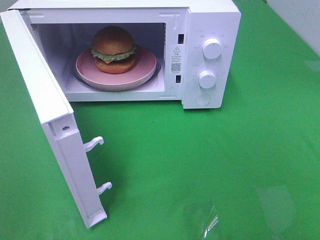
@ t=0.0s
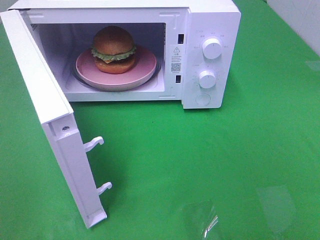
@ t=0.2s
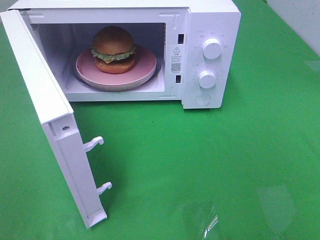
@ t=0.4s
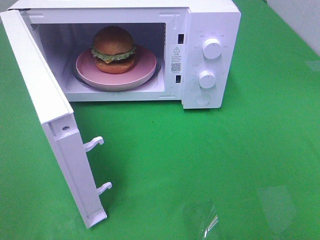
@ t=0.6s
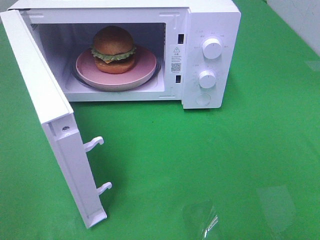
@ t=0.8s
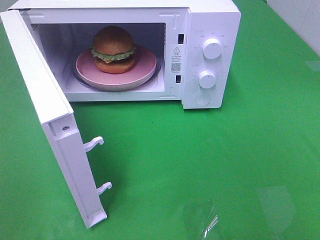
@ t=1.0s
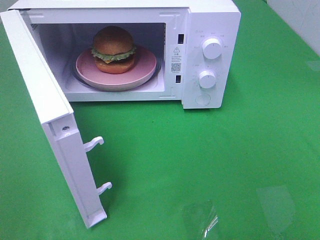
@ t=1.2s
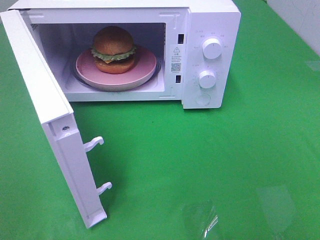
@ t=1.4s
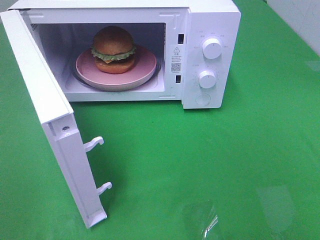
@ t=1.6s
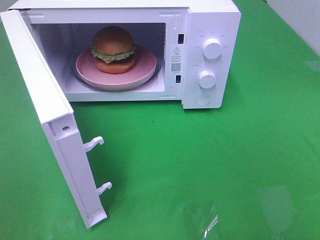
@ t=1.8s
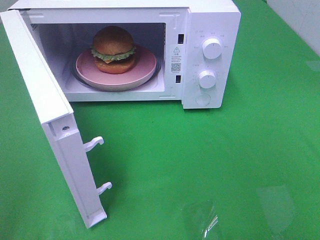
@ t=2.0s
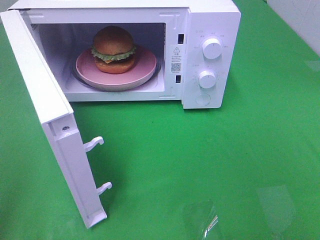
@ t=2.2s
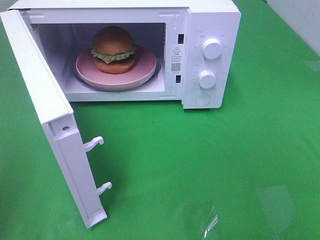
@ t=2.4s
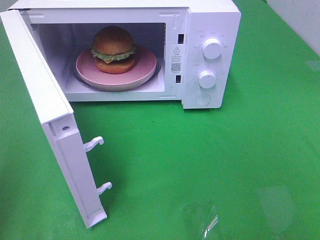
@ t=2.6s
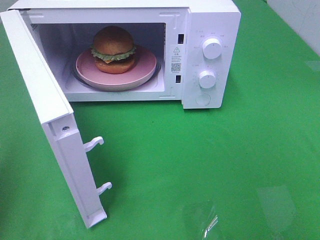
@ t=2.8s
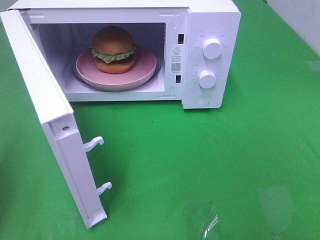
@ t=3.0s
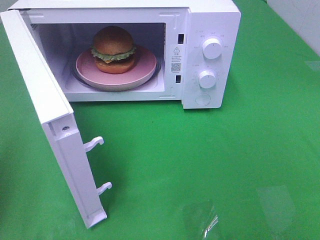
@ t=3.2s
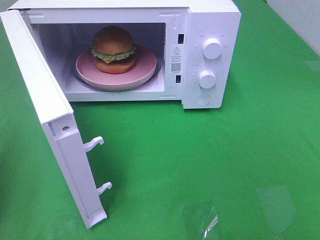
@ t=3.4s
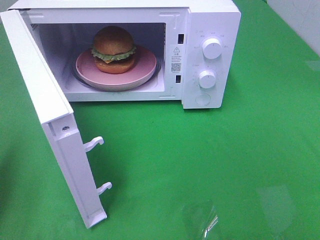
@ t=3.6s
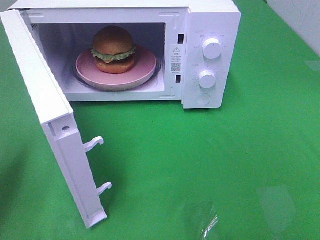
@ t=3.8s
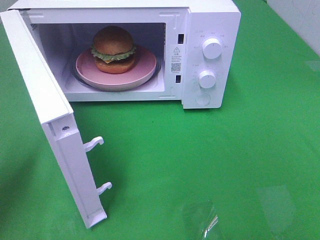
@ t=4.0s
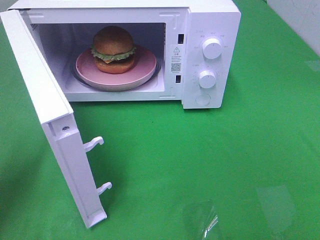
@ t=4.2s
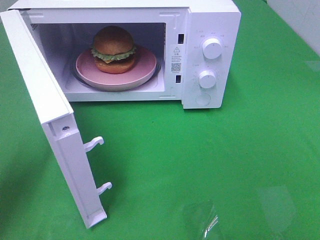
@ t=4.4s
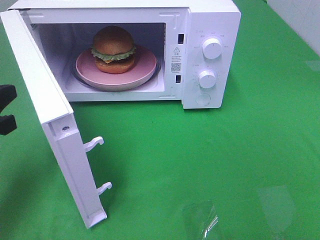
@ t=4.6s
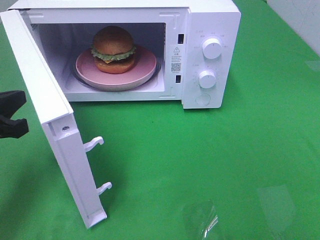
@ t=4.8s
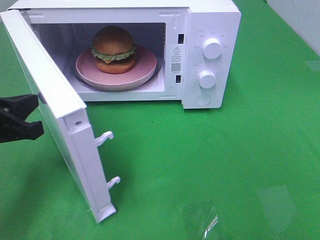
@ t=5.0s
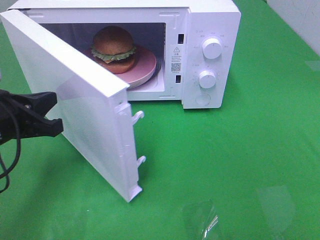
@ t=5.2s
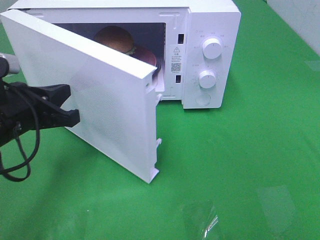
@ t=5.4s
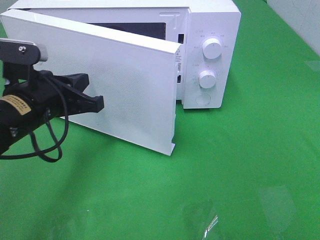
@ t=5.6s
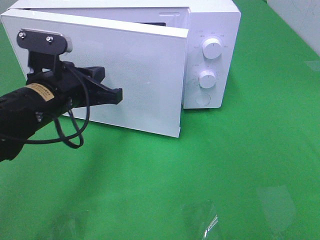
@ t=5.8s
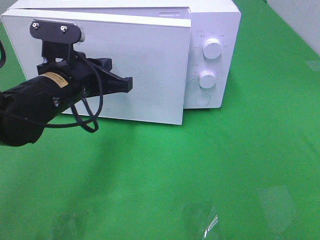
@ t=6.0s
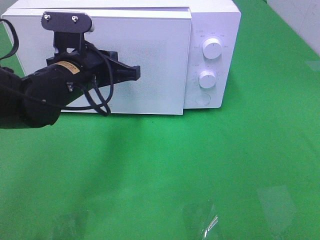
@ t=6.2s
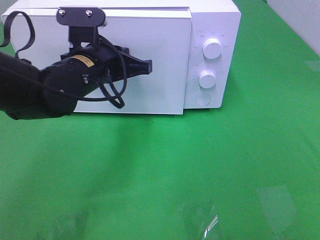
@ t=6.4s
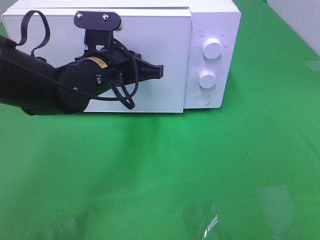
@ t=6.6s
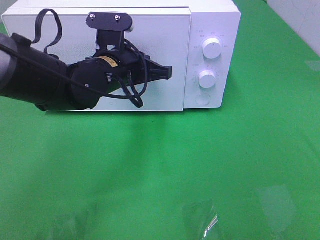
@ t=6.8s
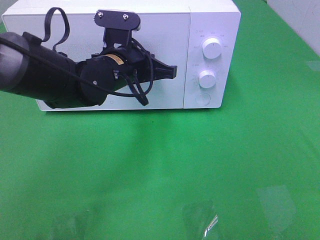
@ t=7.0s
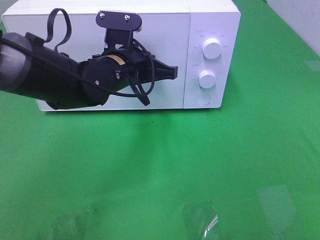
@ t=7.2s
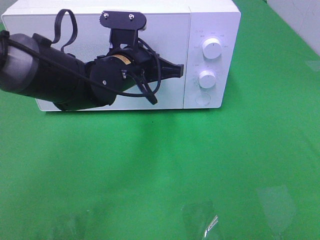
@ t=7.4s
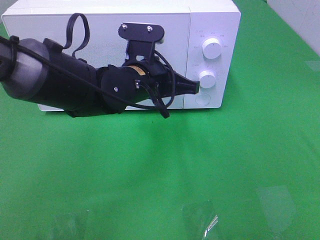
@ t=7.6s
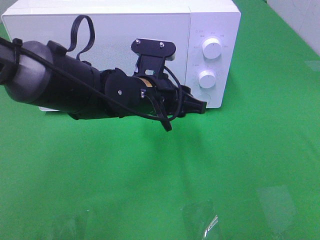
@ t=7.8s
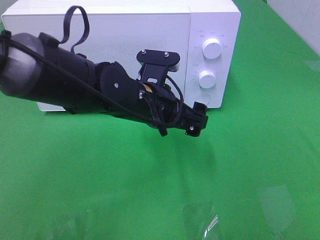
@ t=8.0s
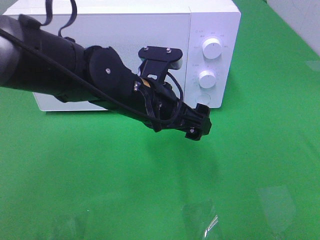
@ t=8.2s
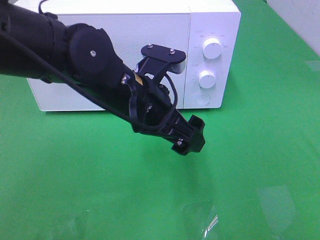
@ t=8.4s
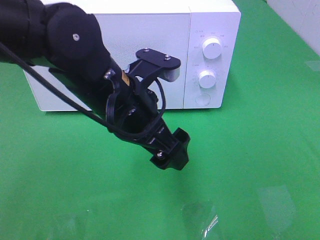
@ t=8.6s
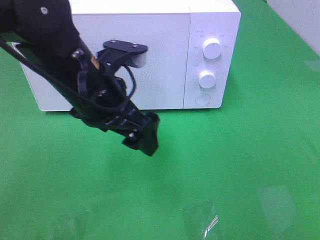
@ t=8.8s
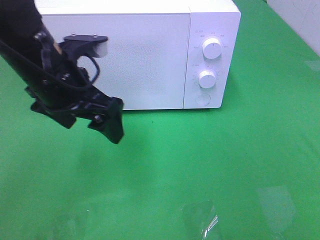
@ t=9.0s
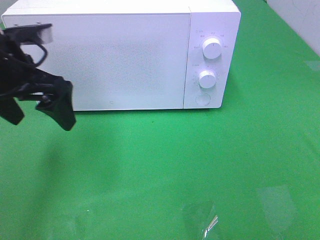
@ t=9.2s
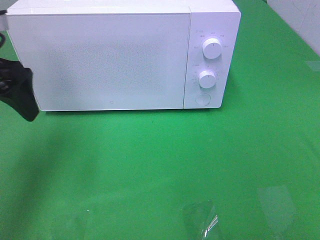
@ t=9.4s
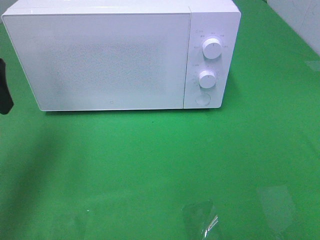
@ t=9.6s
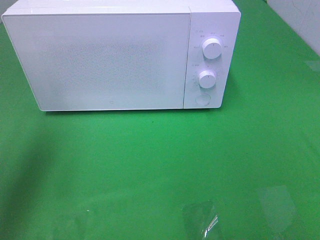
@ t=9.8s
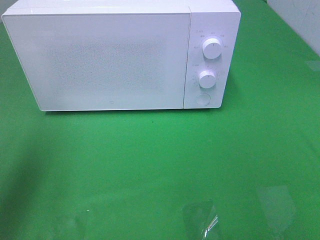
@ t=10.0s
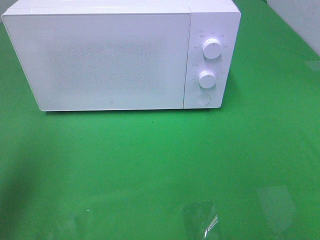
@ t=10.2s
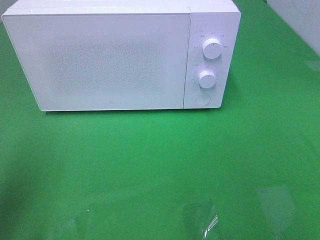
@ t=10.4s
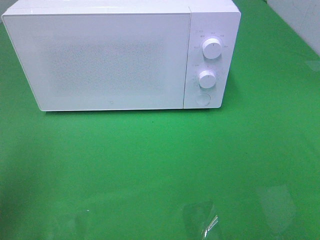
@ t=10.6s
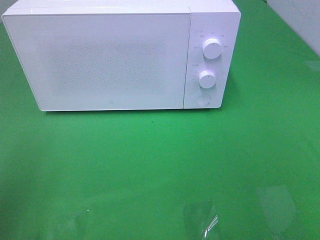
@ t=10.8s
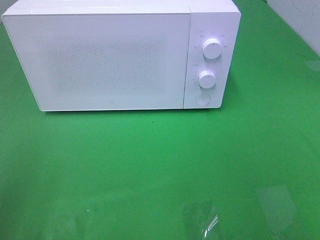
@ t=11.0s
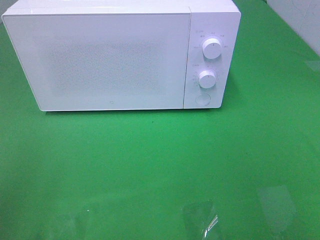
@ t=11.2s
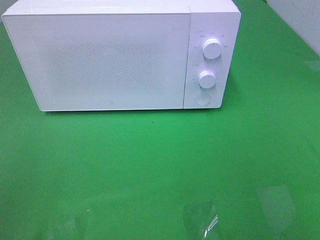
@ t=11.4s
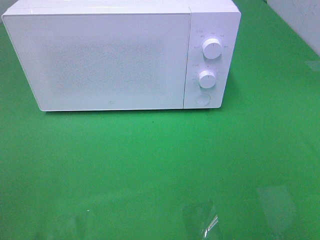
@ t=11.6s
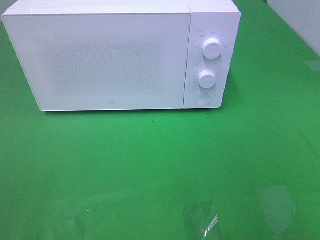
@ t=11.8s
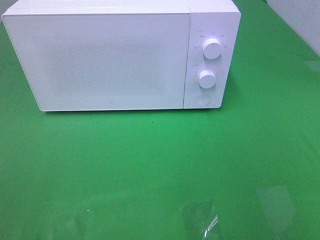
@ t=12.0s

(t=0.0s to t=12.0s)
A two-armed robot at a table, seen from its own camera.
Task of the whole recording: Heat the burger.
Step, t=0.0s - t=7.8s: Left hand: close the microwave door.
t=0.0s - t=1.6s: The two grippers keep their place.
t=3.0s - t=4.4s: The left gripper heads downward and forward, covering approximately 10 cm.
t=4.4s - t=6.0s: The left gripper shifts approximately 20 cm to the right and forward.
t=6.0s - t=7.6s: The left gripper heads to the right, covering roughly 10 cm.
t=7.6s - t=9.0s: The left gripper travels to the left and upward by approximately 15 cm, and opens its fingers.
t=9.0s - t=10.4s: The left gripper heads to the left and backward, covering some 20 cm.
t=10.4s - t=12.0s: The left gripper travels backward by approximately 15 cm.

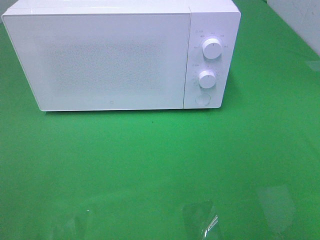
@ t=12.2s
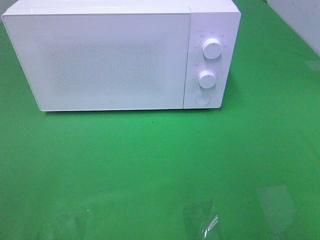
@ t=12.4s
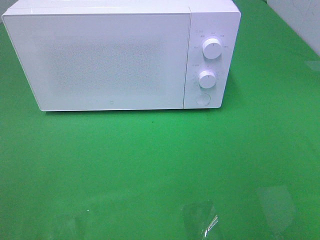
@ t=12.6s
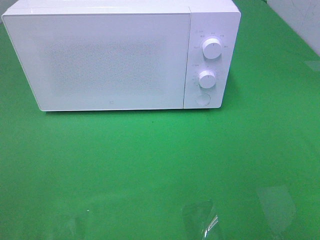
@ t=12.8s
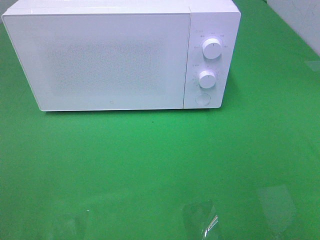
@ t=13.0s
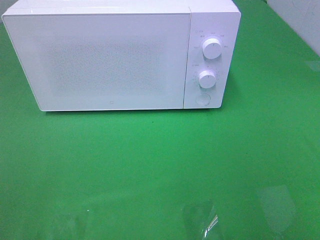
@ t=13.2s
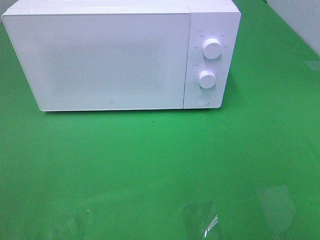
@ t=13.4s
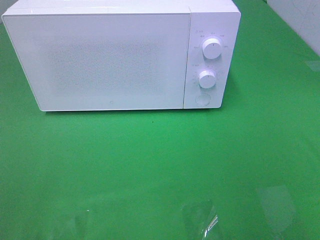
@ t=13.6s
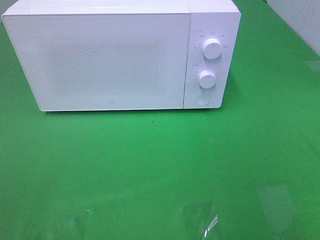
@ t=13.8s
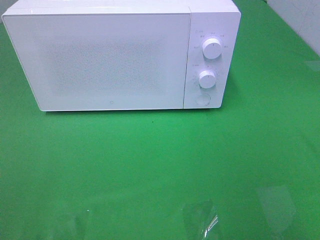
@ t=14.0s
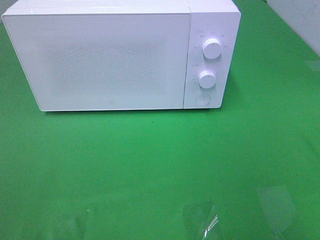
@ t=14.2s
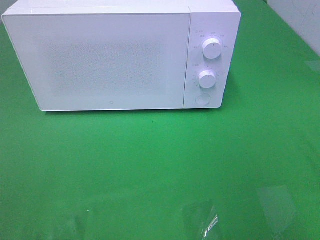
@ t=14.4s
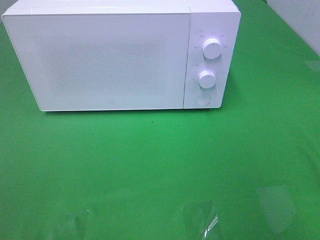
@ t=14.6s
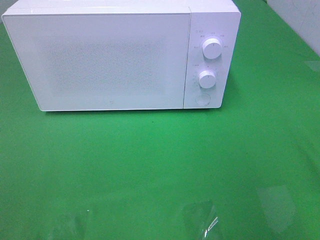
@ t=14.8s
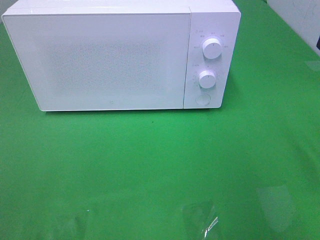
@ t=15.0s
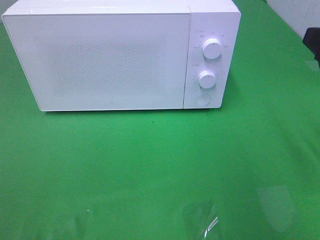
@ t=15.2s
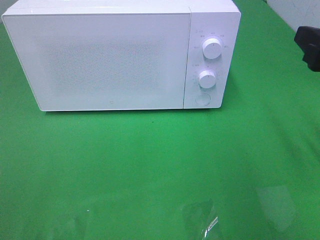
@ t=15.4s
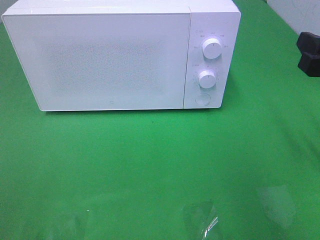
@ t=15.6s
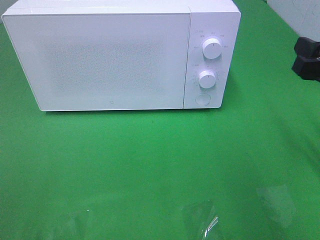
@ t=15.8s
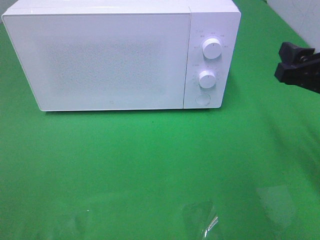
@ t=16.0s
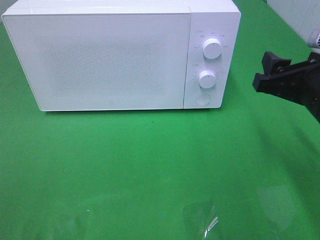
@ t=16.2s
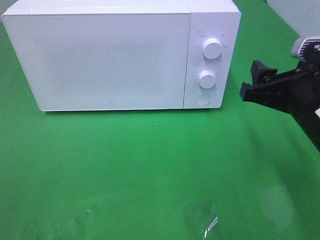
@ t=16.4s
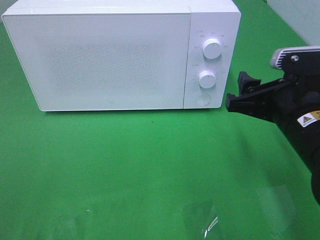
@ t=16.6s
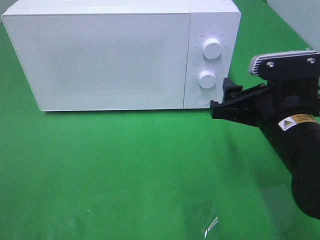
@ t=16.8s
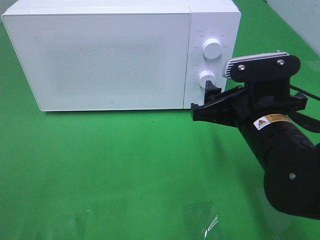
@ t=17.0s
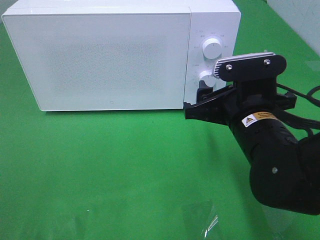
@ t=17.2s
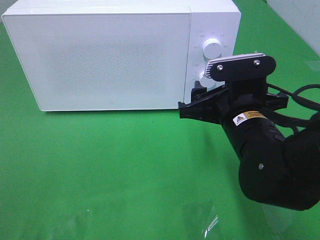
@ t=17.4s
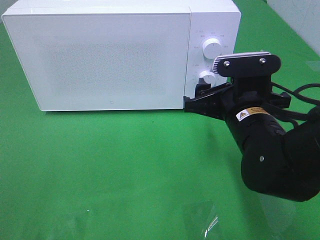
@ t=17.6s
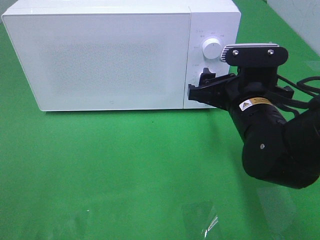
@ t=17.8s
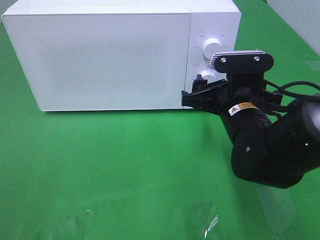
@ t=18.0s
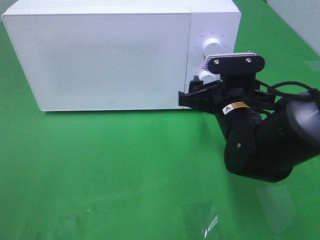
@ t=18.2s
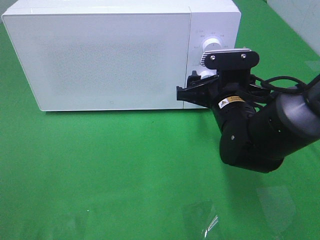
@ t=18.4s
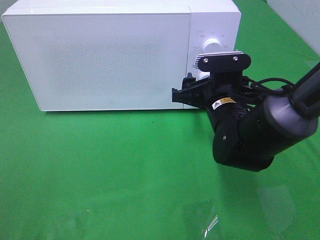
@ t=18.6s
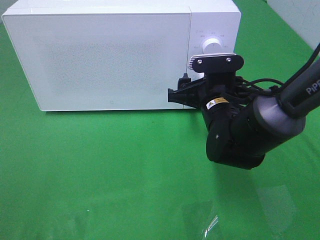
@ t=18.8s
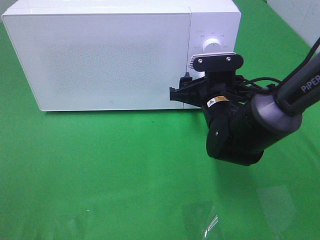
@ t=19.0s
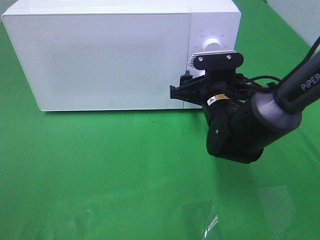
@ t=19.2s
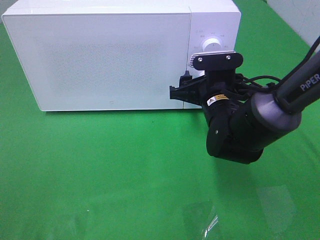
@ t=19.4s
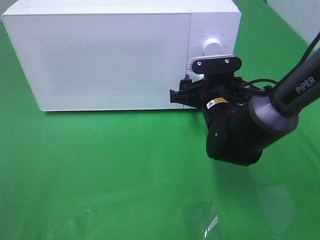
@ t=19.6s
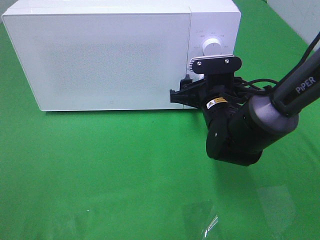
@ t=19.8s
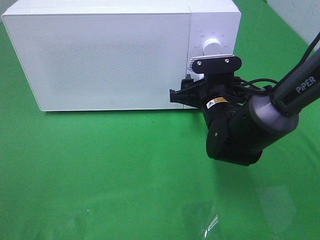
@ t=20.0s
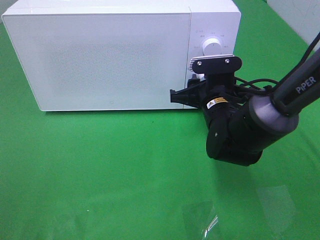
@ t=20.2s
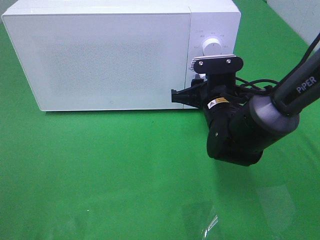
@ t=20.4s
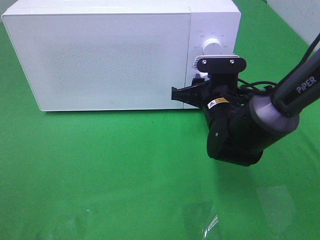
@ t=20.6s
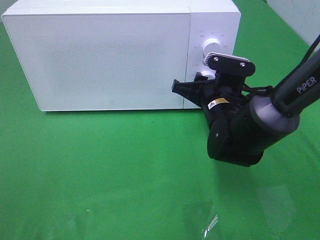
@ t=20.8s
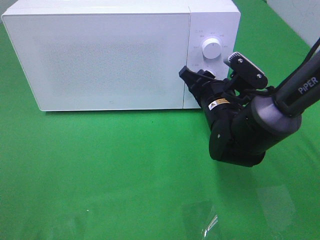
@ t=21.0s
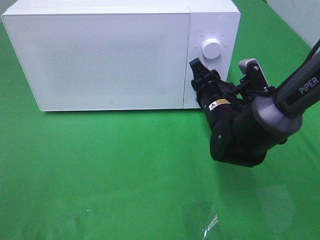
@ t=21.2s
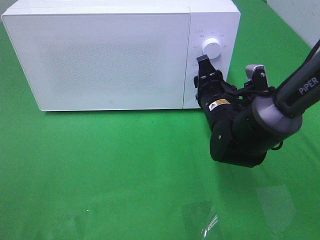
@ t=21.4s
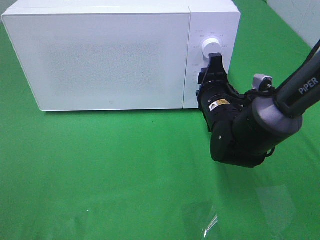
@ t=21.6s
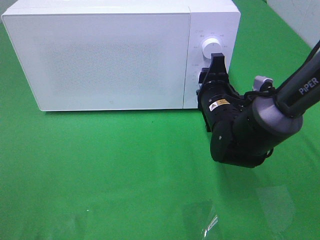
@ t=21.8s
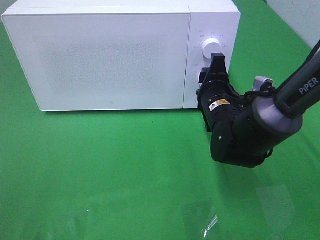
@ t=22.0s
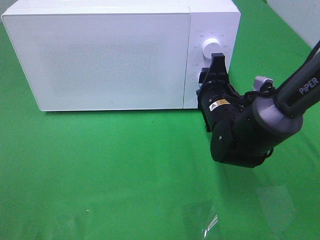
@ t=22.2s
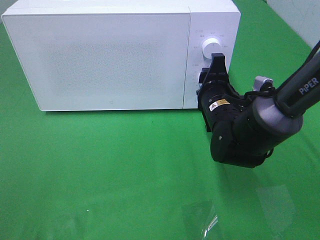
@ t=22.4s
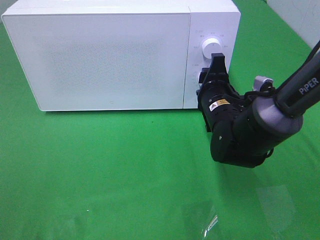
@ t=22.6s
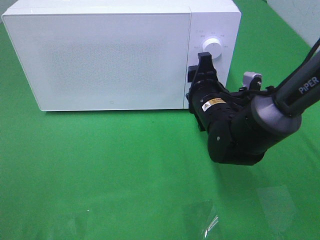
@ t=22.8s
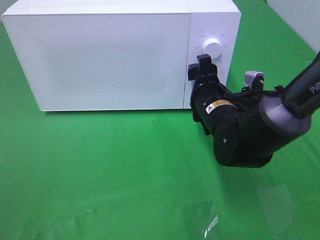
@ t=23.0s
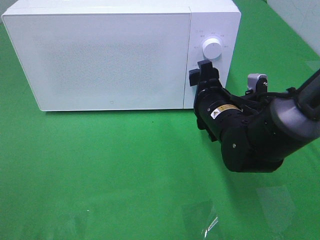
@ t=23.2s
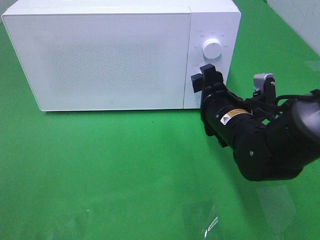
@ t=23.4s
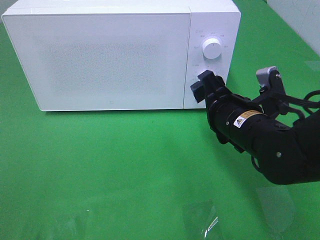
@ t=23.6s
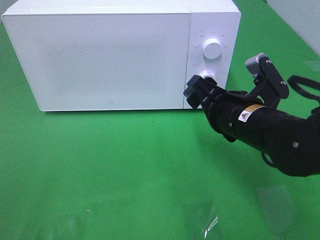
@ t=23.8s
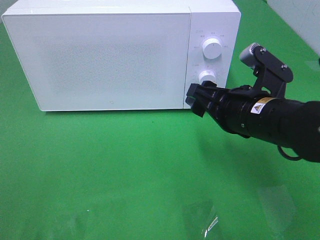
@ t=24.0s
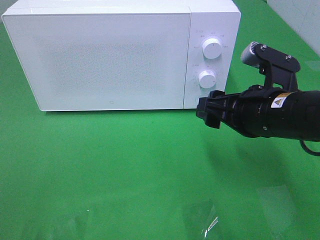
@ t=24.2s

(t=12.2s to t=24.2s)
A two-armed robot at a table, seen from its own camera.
Task of the whole recording: Heat the burger.
Step, t=12.2s - t=23.0s: Right hand: twist timer button.
t=15.2s - t=16.6s: The right gripper shifts roughly 10 cm downward and to the left.
t=16.6s - t=18.2s: The right gripper goes roughly 10 cm forward and to the left.
t=18.2s - t=19.8s: The right gripper ends up roughly 5 cm from where it was.
t=19.8s - t=21.2s: The right gripper closes.
t=22.6s - t=24.2s: The right gripper heads backward and upward, covering roughly 10 cm.
